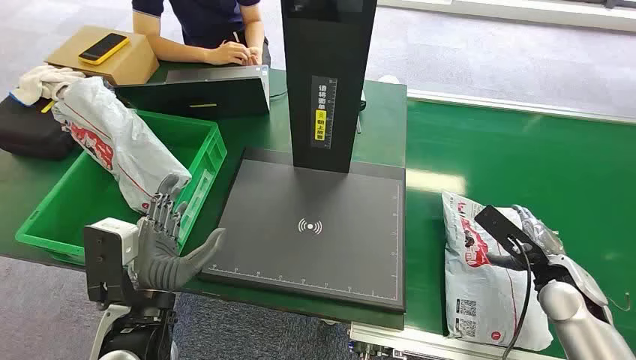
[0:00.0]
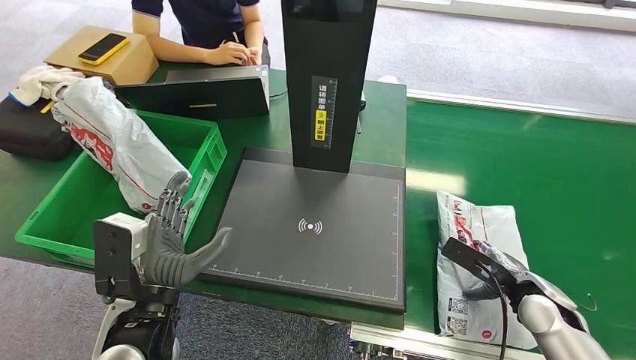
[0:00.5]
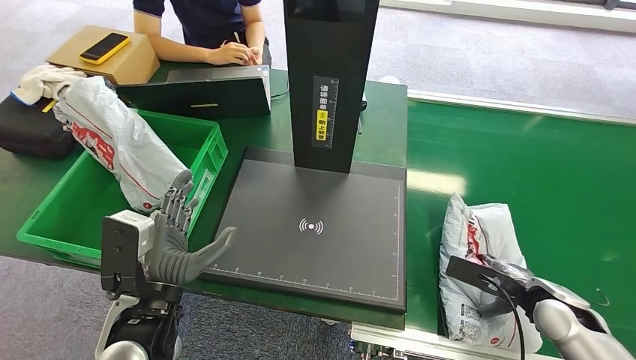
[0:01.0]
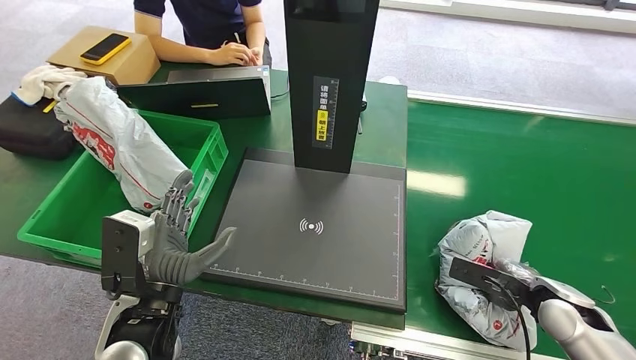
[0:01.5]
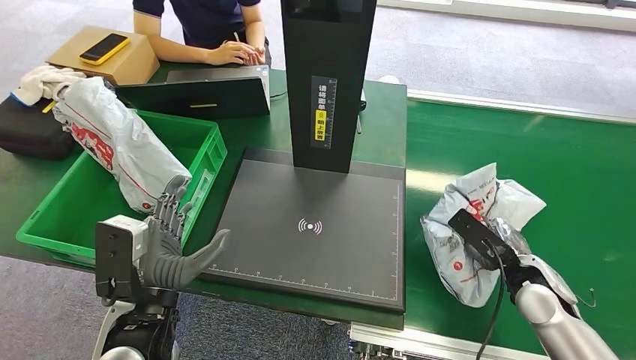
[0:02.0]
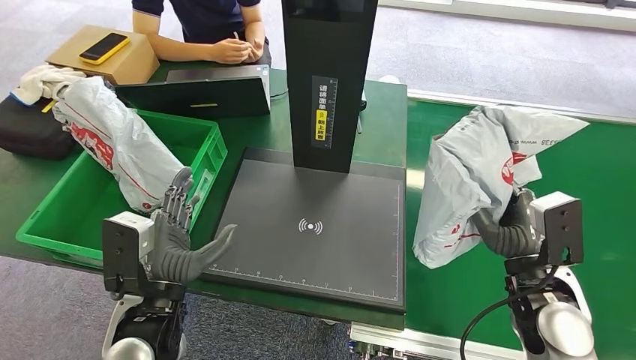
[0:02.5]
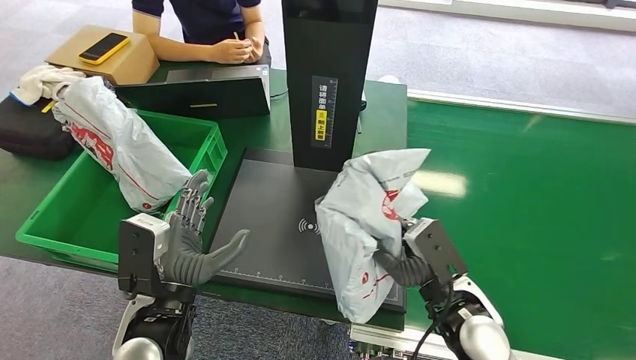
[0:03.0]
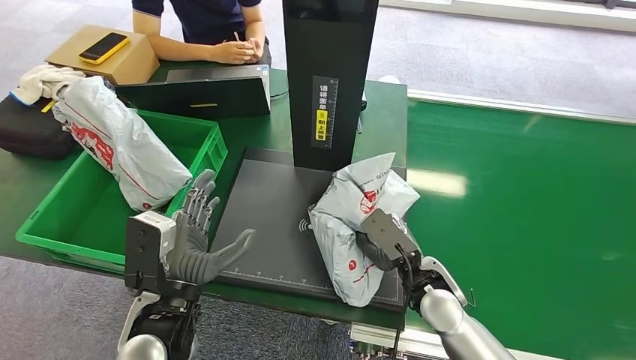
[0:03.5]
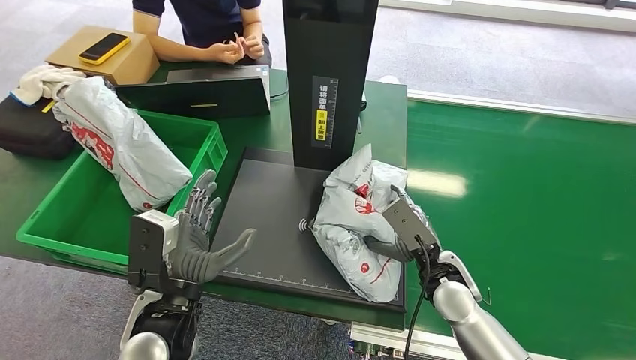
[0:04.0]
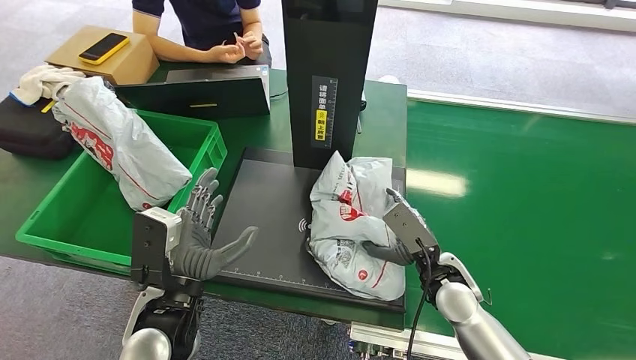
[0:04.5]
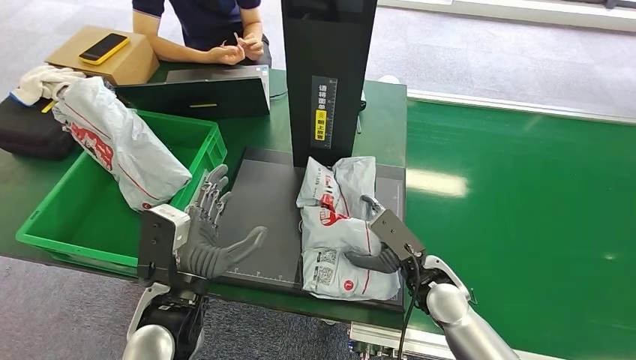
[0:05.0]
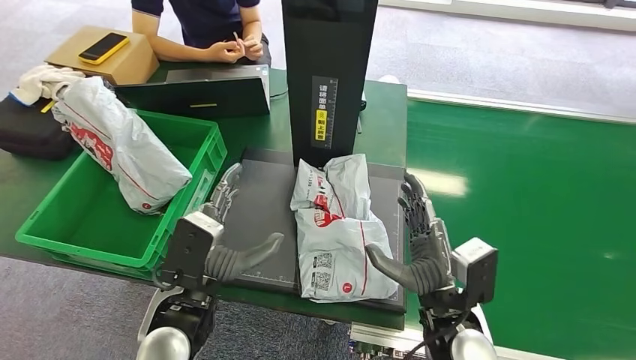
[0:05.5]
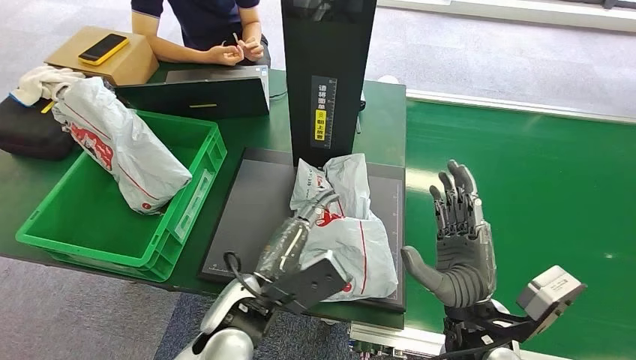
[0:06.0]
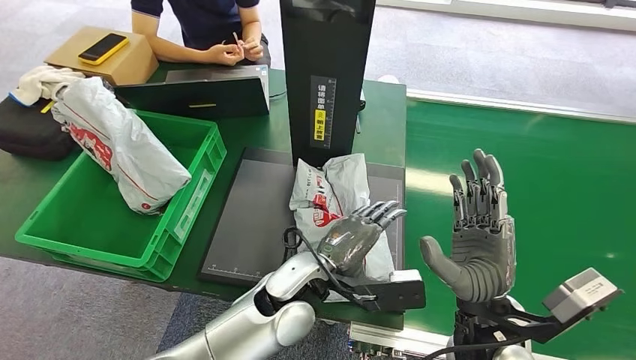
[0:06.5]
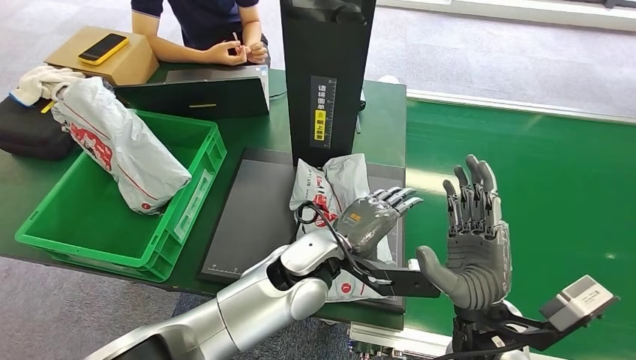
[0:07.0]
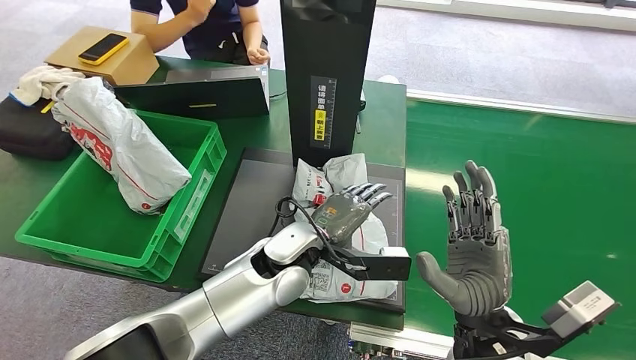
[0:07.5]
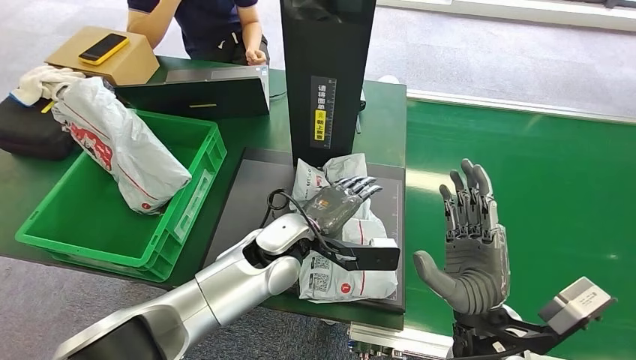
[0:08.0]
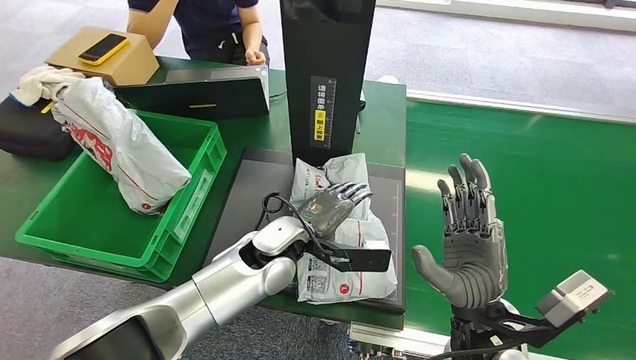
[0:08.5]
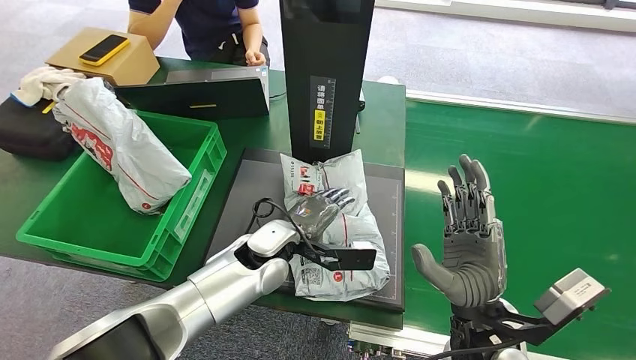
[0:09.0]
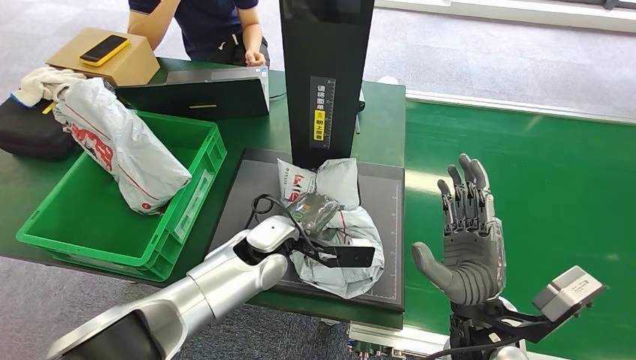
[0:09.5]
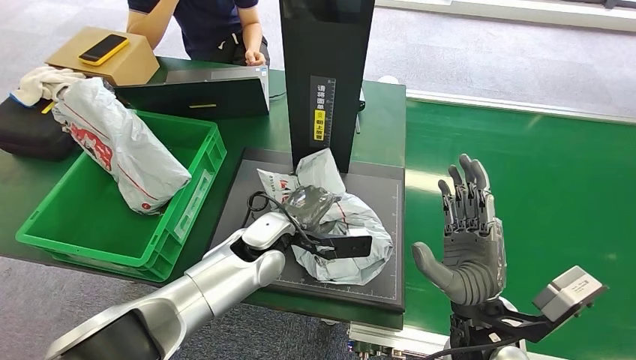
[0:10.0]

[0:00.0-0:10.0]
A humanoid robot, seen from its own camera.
Step, 0:00.0 to 0:02.5: Pick up the package from the conveyor belt.
Step, 0:03.0 to 0:05.5: Place the package onto the inbound machine.
0:06.0 to 0:08.0: The left hand shifts some 15 cm forward.
0:08.0 to 0:10.0: The left hand moves approximately 5 cm.

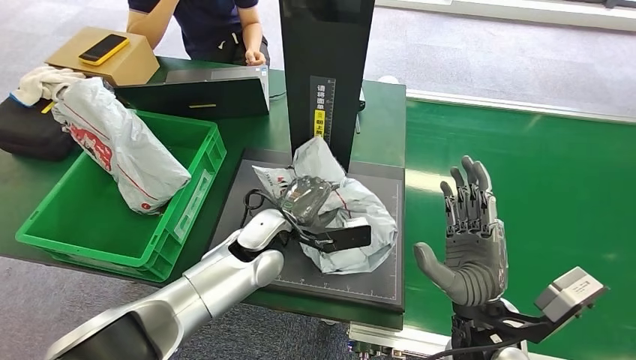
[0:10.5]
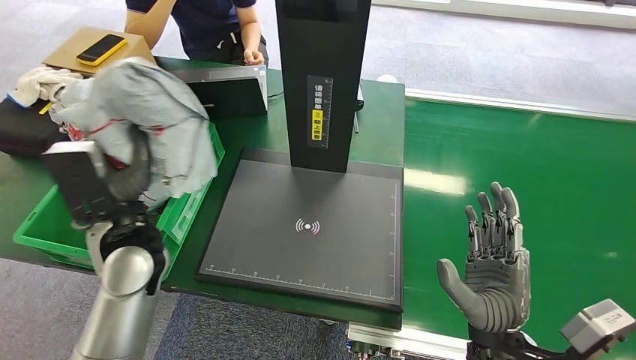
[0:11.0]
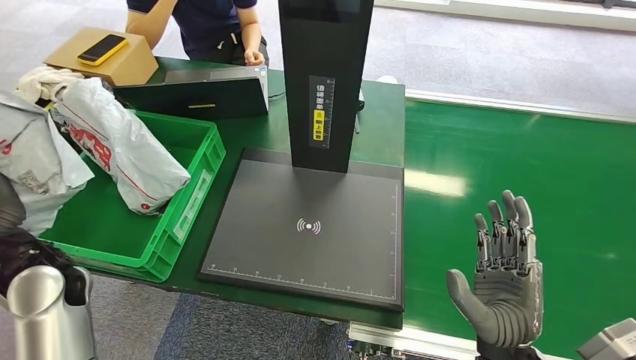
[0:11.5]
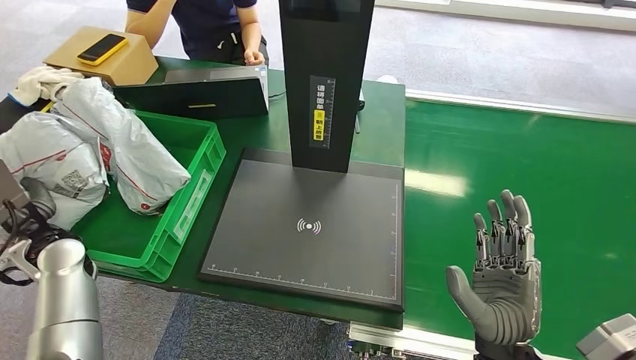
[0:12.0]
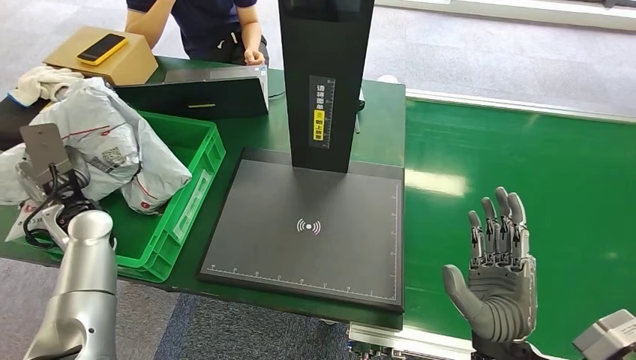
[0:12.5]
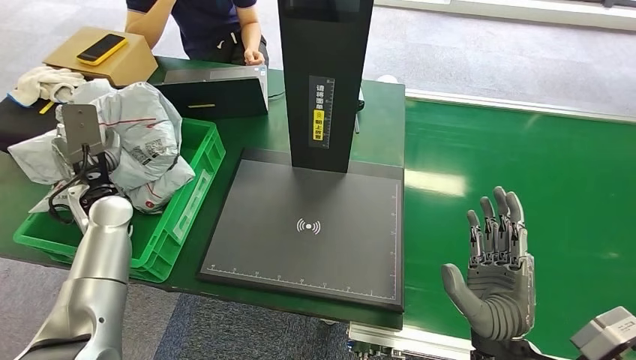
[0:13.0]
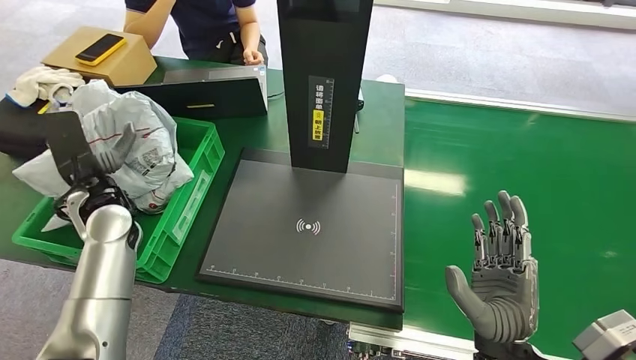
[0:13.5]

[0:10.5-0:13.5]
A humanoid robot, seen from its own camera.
Step, 0:11.0 to 0:13.5: Place the package into the parcel locker.
0:12.0 to 0:13.5: The left hand travels to the right and forward by about 10 cm.
